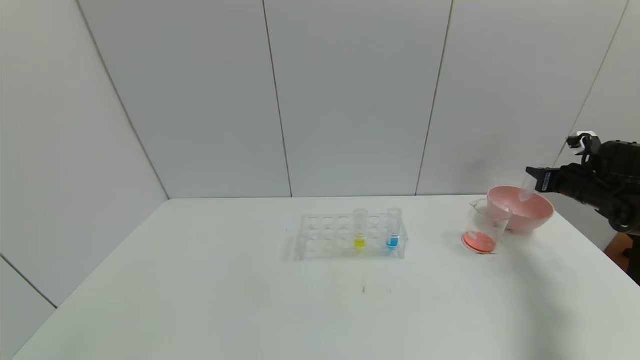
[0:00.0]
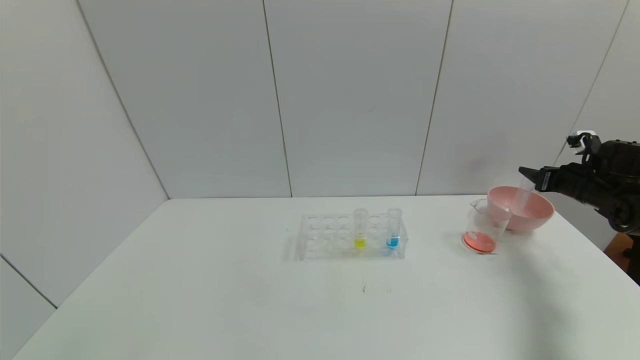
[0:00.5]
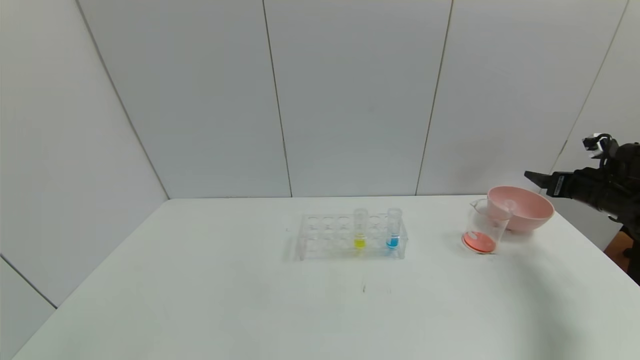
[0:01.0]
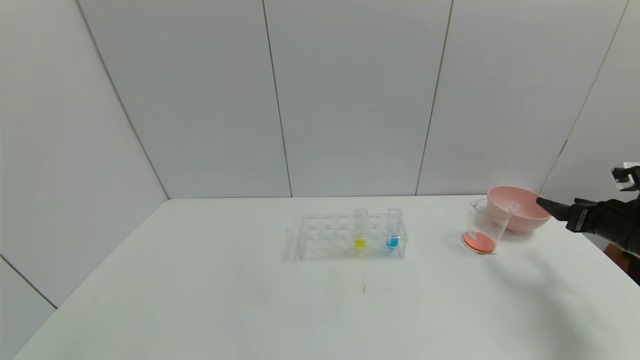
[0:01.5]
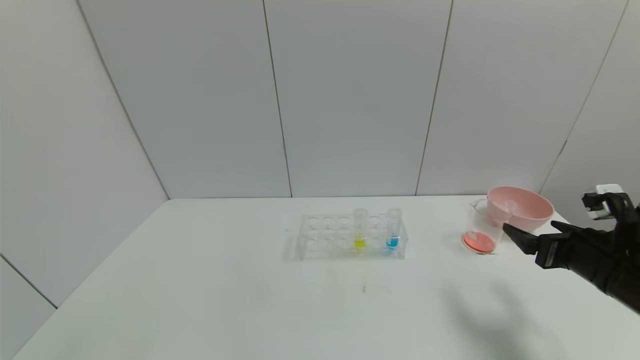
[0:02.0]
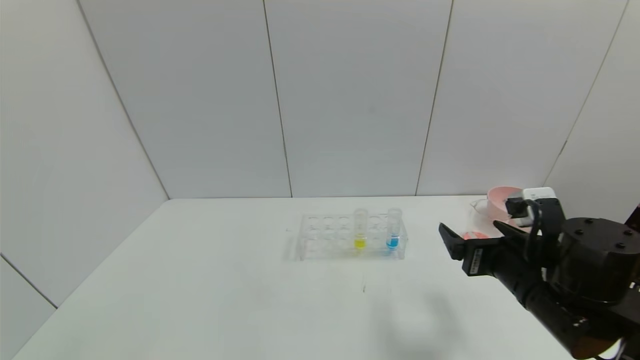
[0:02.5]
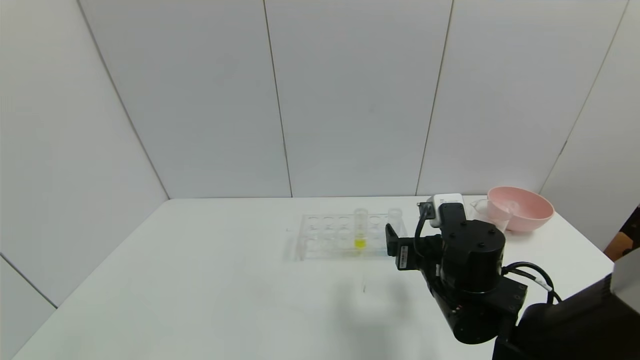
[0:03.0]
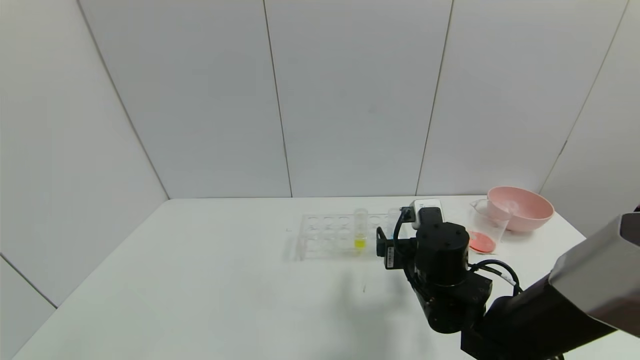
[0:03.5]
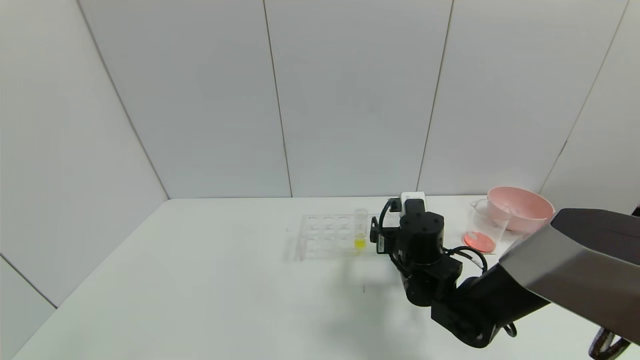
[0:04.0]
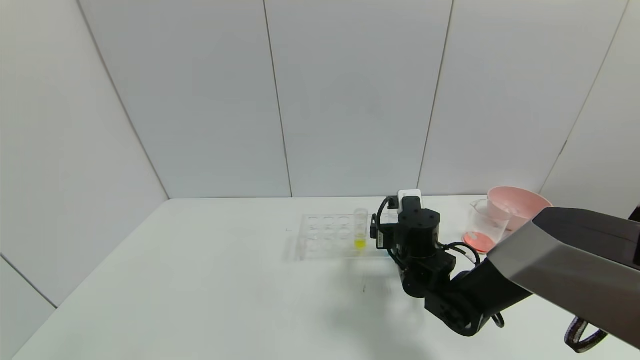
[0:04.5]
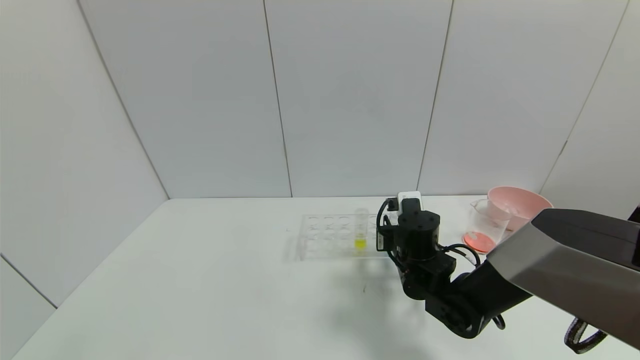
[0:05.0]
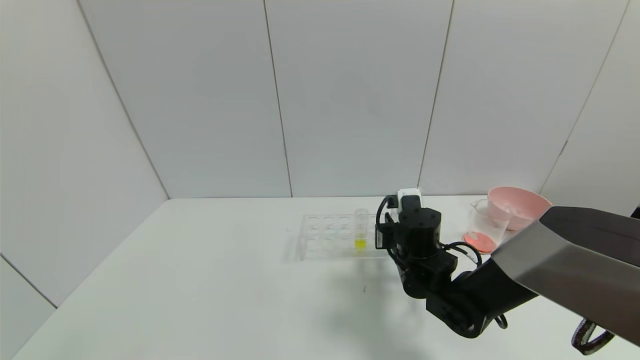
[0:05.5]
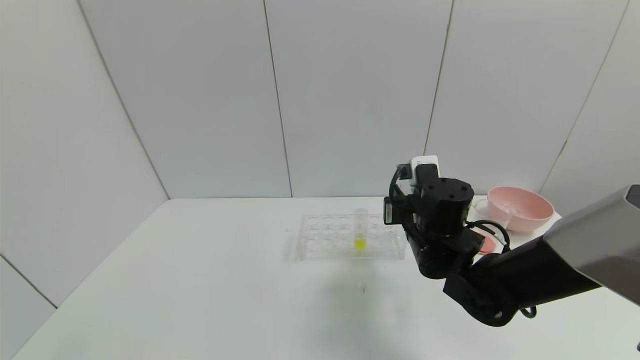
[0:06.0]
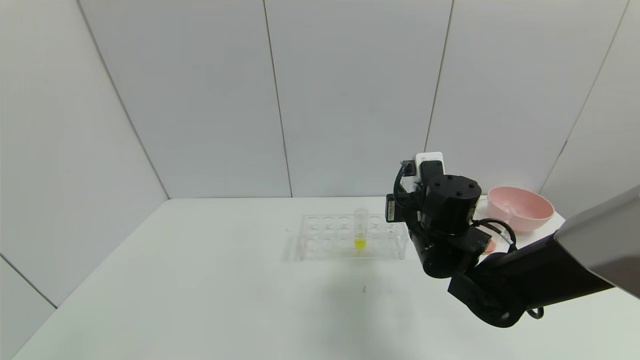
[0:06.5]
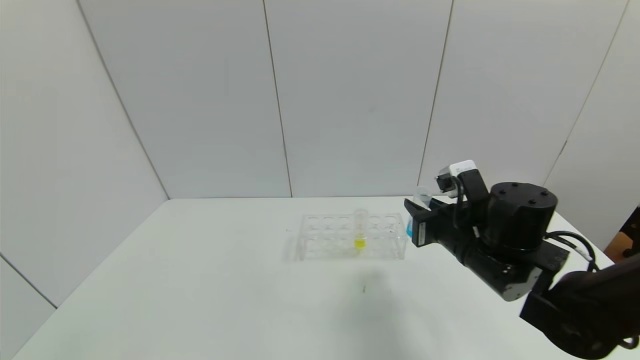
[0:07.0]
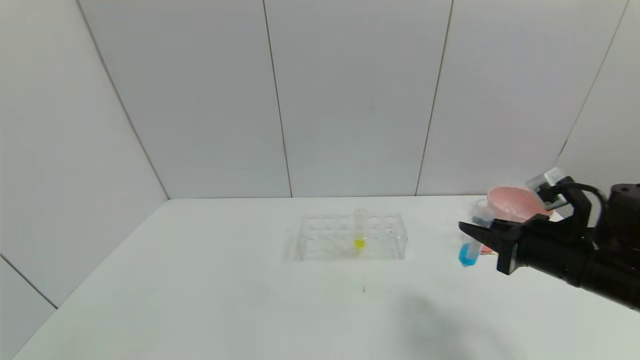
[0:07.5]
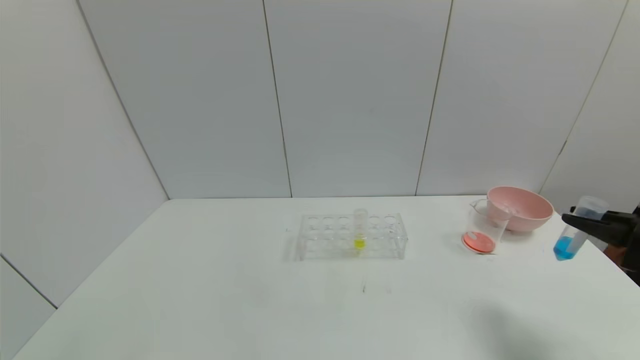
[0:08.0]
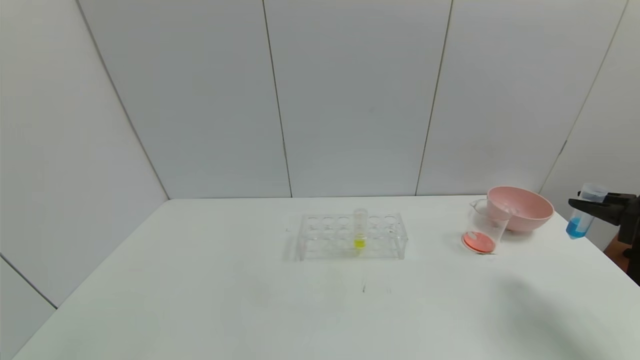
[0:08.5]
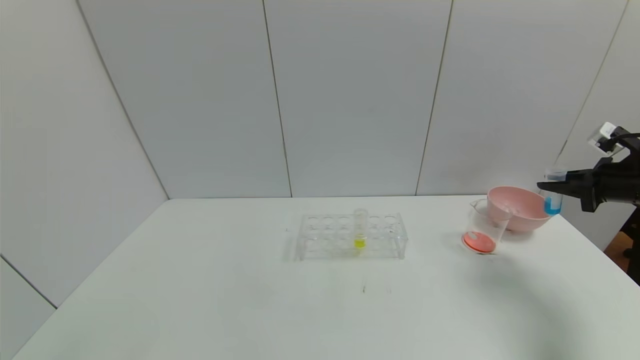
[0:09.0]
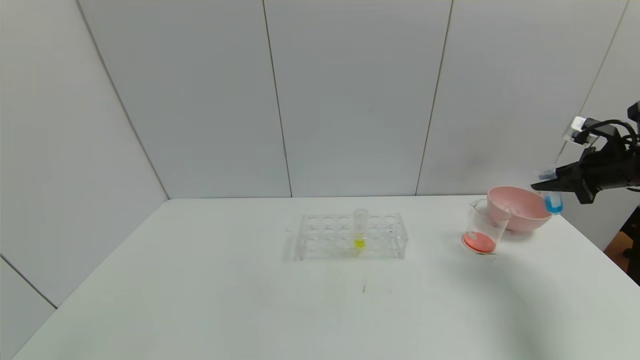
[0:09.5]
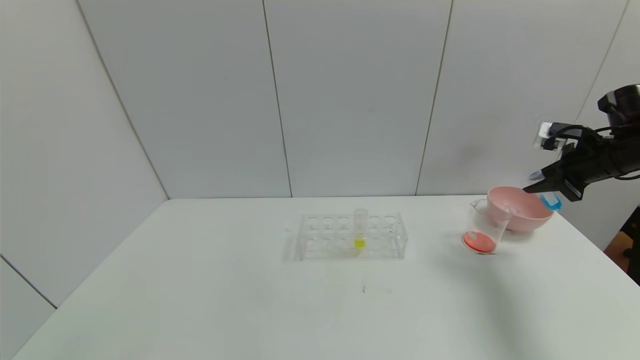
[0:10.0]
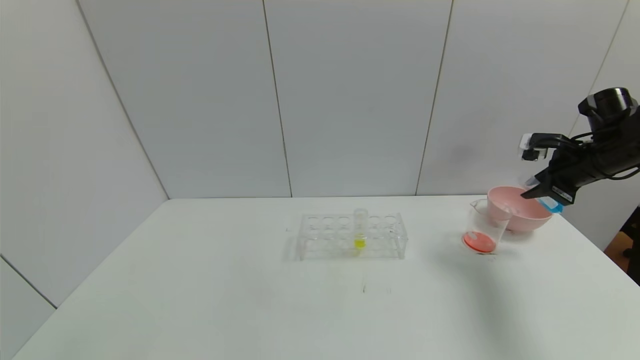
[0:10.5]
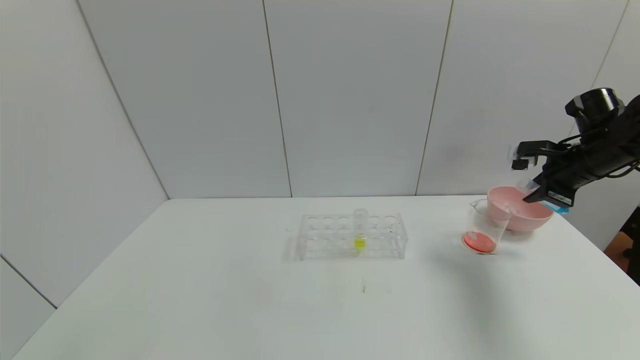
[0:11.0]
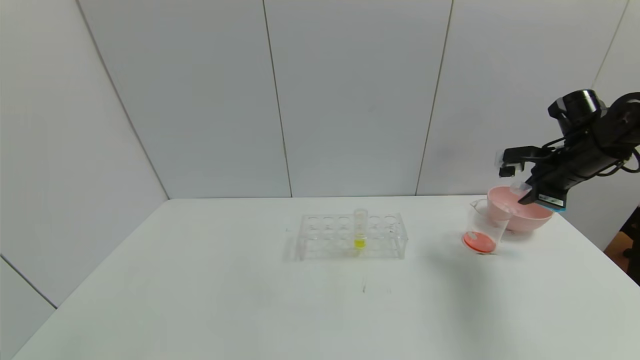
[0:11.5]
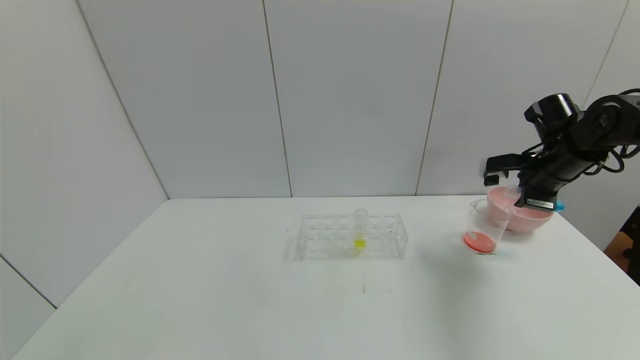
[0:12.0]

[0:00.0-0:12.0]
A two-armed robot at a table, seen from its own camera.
Task of the whole recording: pick up the test tube with red pigment and the test tube with blue pigment by grippers and pour them into the container.
Step, 0:01.0 to 0:05.0: Grasp the blue reagent with the right gripper.
0:00.0 to 0:02.0: The right gripper goes some 25 cm backward and to the left, and opens its fingers.
0:02.0 to 0:04.0: The right gripper goes about 25 cm to the left.
0:04.0 to 0:06.0: The right gripper moves upward, about 5 cm, and closes its fingers.
0:06.0 to 0:08.0: The right gripper shifts roughly 30 cm to the right.
0:08.0 to 0:10.0: The right gripper heads forward, covering some 15 cm.
0:10.0 to 0:12.0: The right gripper moves to the left, roughly 10 cm.

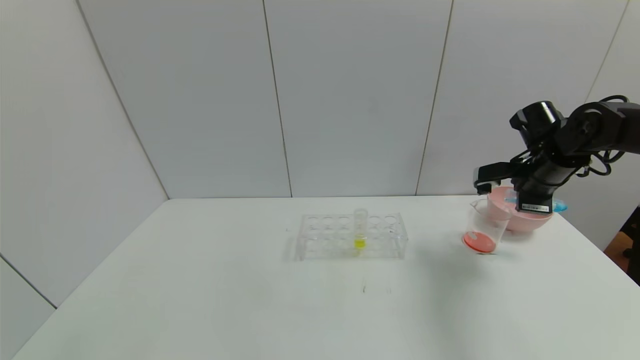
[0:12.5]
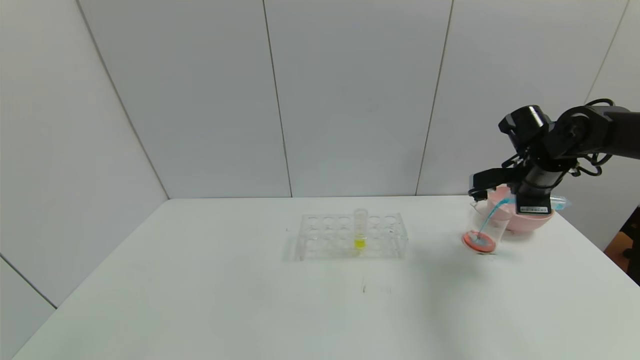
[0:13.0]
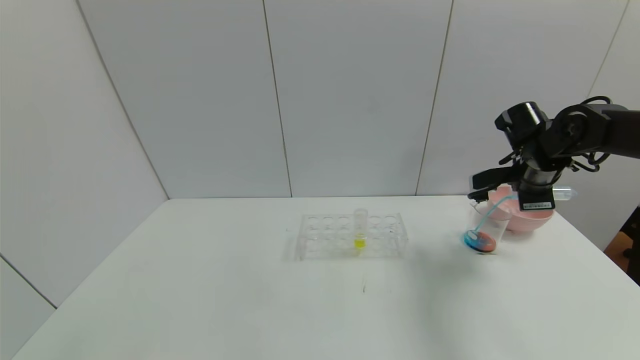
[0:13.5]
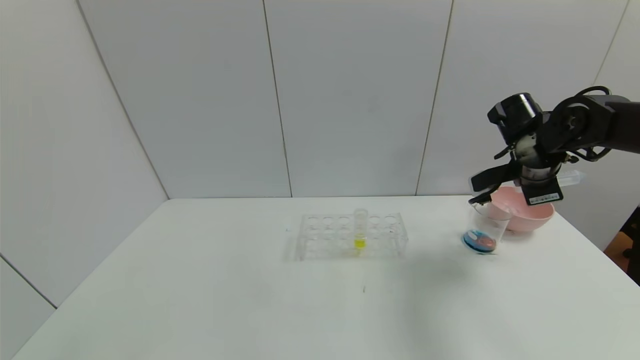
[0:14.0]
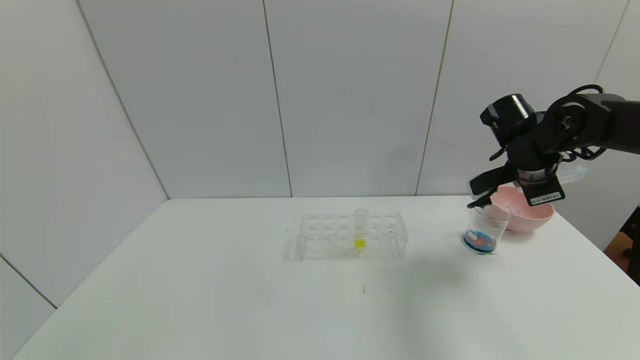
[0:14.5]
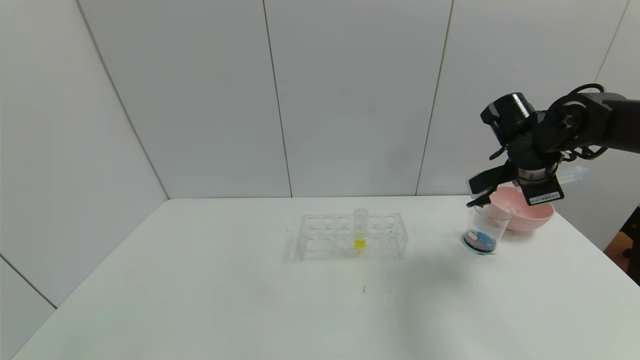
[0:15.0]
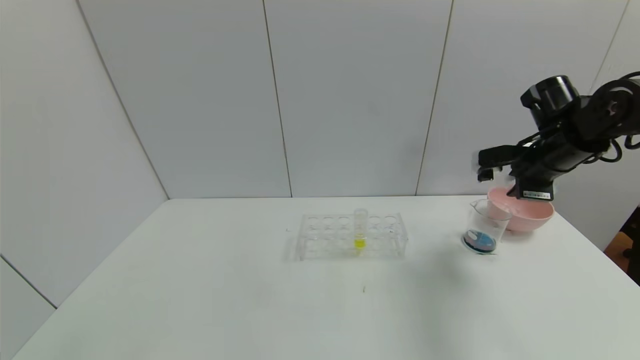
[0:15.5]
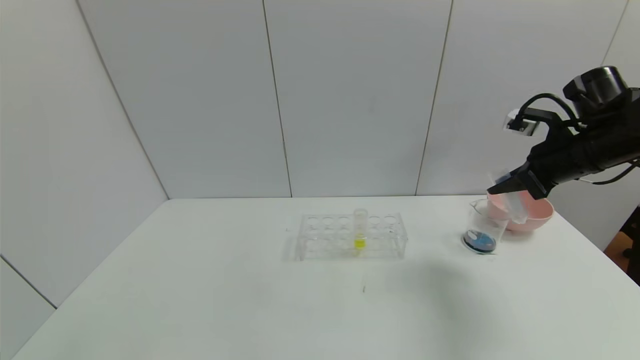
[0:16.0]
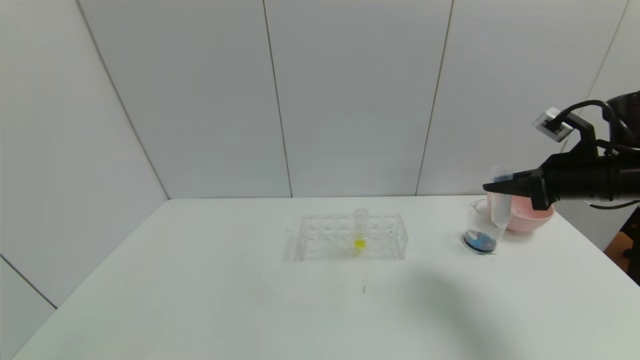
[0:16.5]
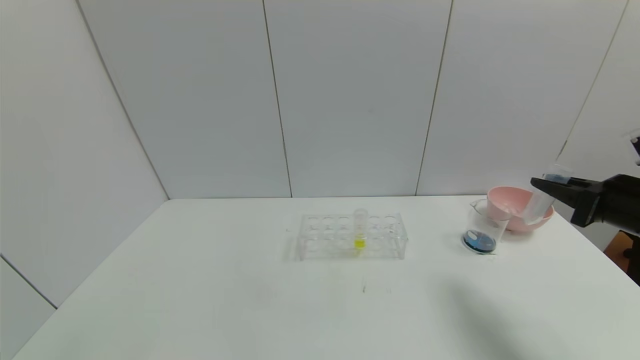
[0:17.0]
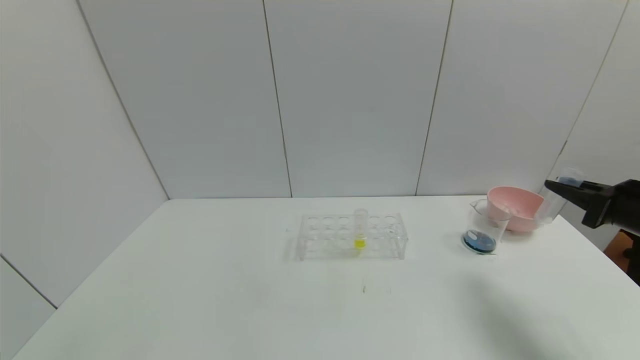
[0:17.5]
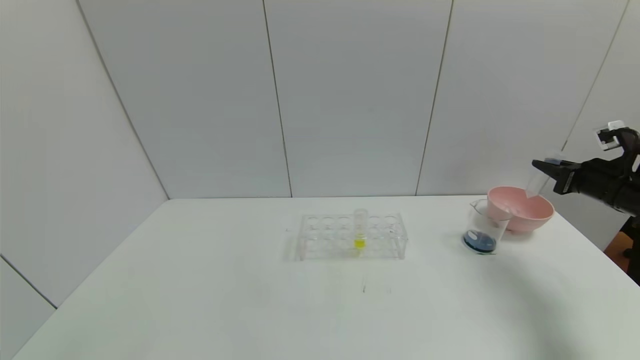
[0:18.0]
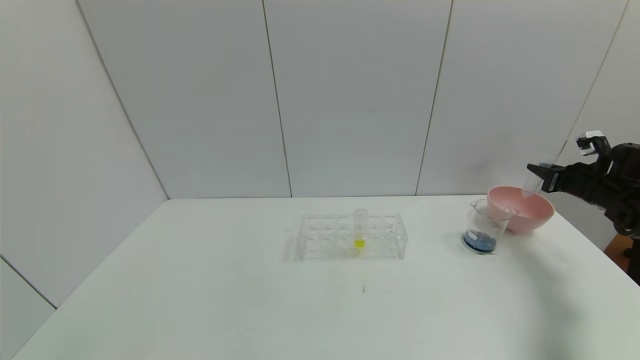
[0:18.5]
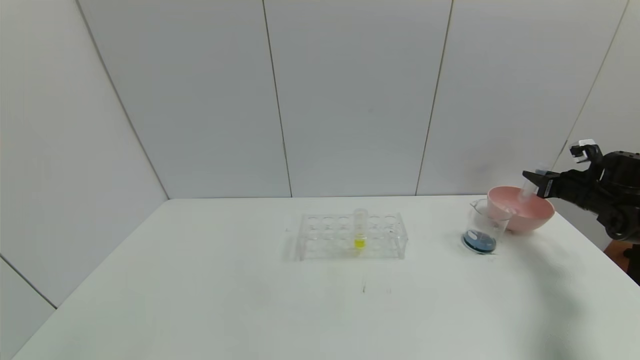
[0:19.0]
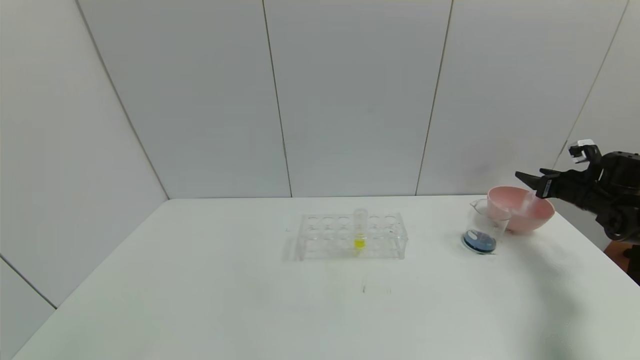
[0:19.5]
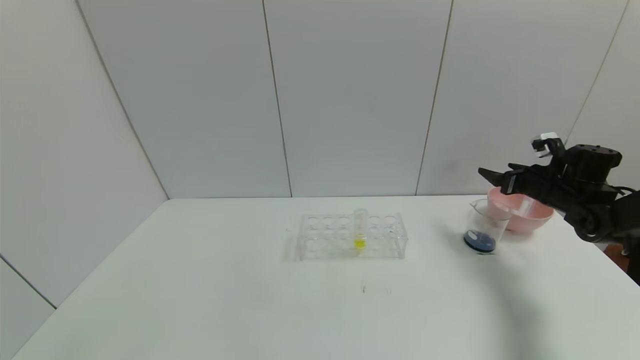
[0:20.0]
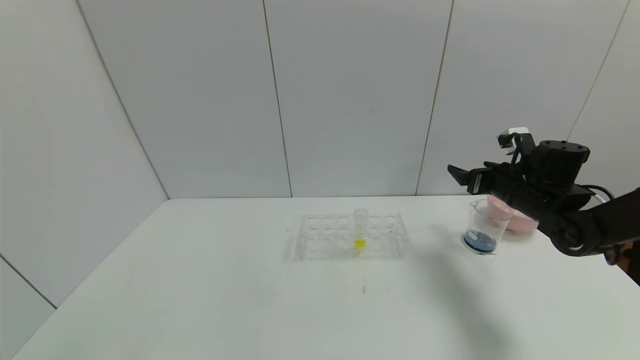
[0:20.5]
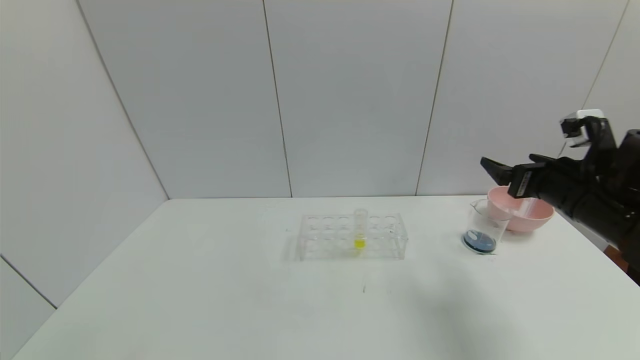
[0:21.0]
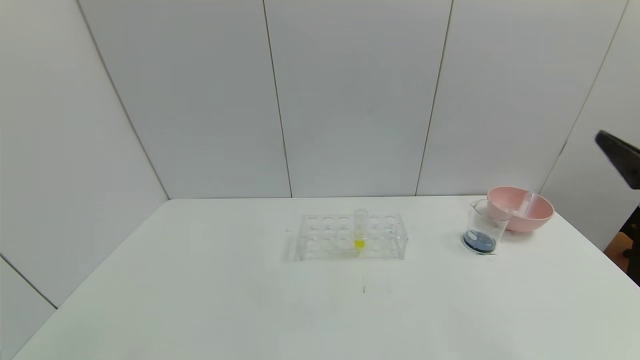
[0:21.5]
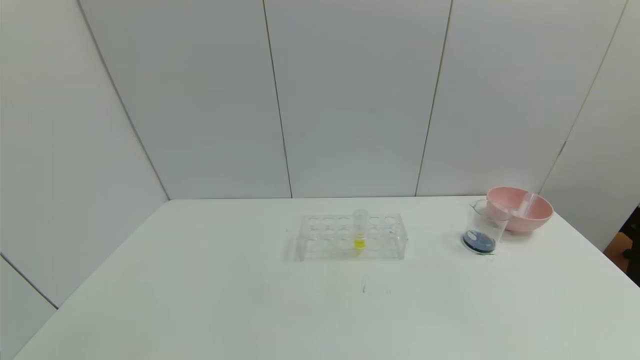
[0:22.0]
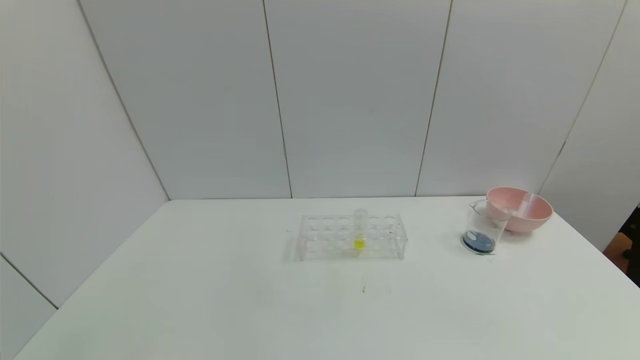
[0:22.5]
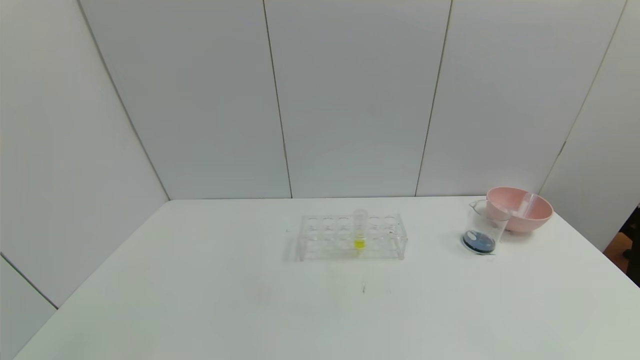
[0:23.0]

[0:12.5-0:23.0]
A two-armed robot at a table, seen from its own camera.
Task of the whole recording: pick up the test tube with red pigment and the test tube with blue pigment by grippers and pour them into the container.
Step, 0:14.5 to 0:19.5: Place the test tube into the bowl with the right gripper.
0:12.5 to 0:14.5: The right gripper shifts approximately 5 cm to the left.
0:14.5 to 0:16.5: The right gripper travels backward and to the right by approximately 10 cm.
0:16.5 to 0:19.0: The right gripper shifts approximately 25 cm to the right, forward and downward.
0:19.0 to 0:21.0: The right gripper moves to the left, backward and upward, some 25 cm, and opens.
0:21.0 to 0:23.0: The right gripper travels backward by some 35 cm.
